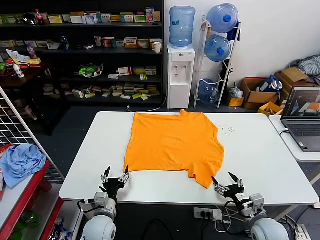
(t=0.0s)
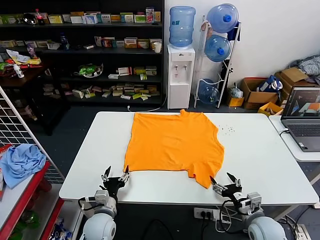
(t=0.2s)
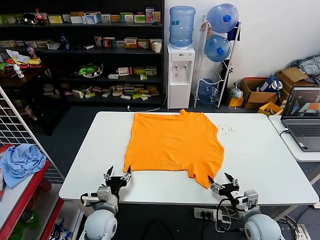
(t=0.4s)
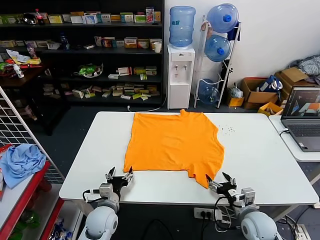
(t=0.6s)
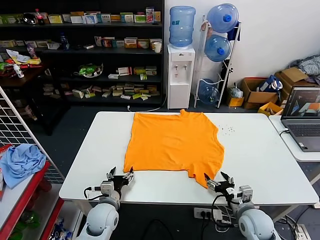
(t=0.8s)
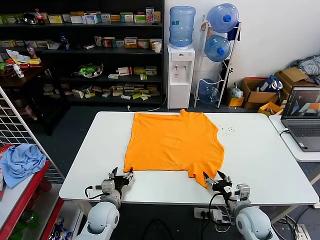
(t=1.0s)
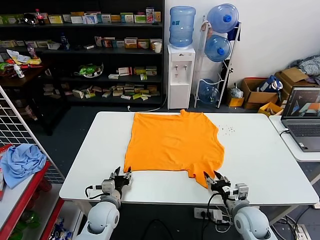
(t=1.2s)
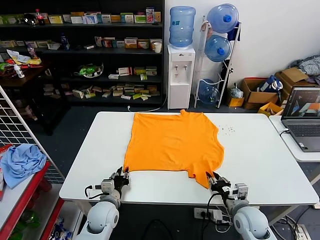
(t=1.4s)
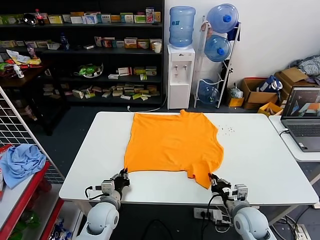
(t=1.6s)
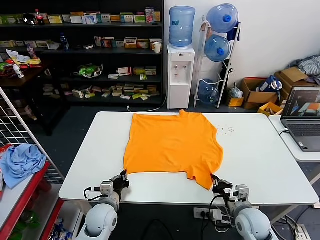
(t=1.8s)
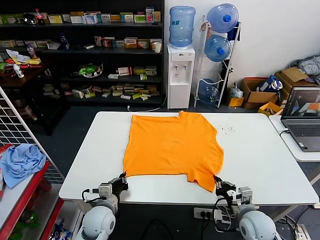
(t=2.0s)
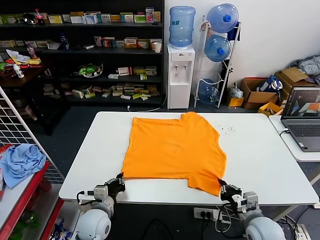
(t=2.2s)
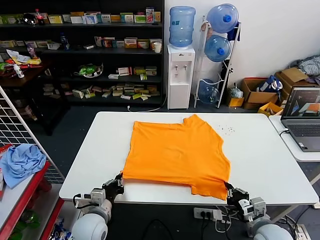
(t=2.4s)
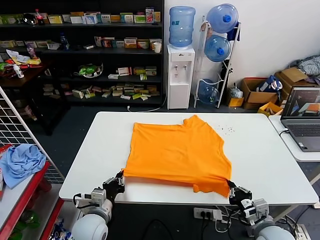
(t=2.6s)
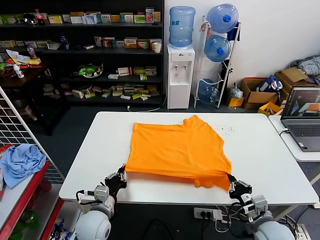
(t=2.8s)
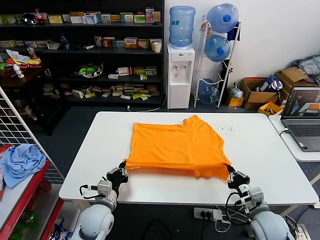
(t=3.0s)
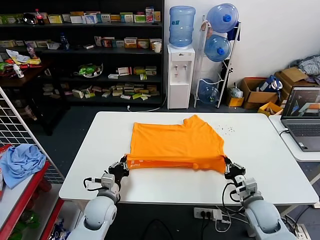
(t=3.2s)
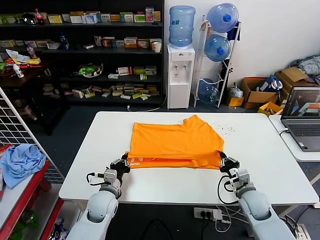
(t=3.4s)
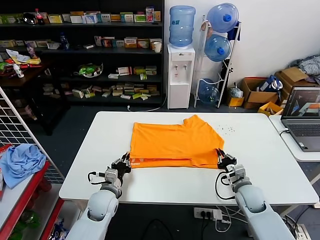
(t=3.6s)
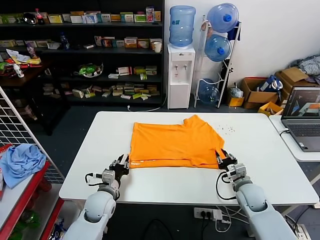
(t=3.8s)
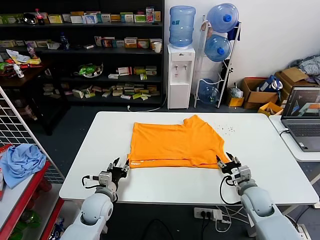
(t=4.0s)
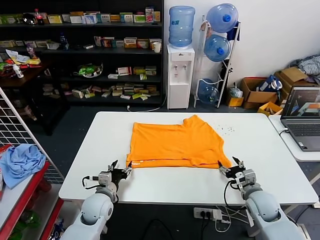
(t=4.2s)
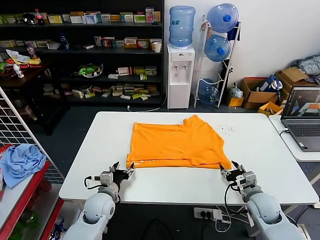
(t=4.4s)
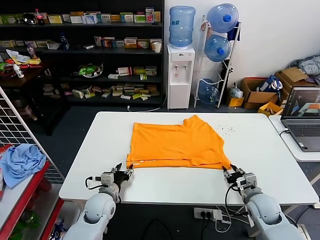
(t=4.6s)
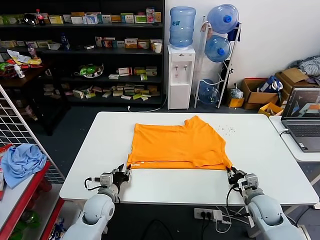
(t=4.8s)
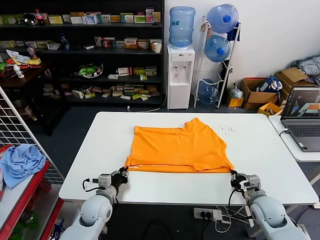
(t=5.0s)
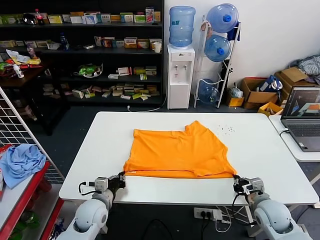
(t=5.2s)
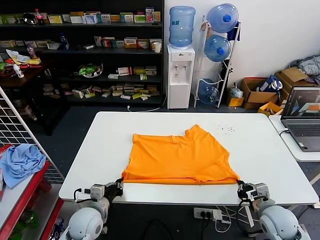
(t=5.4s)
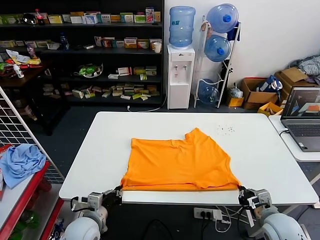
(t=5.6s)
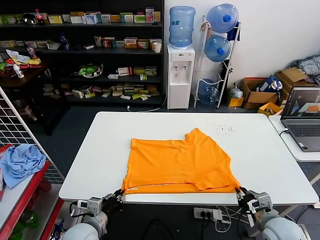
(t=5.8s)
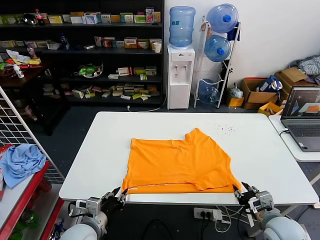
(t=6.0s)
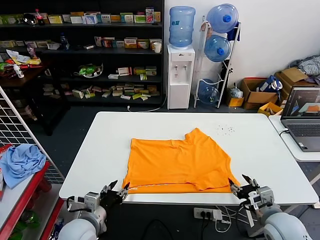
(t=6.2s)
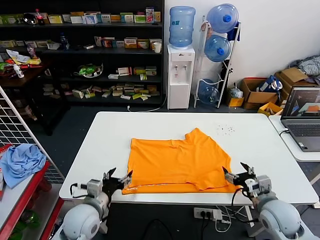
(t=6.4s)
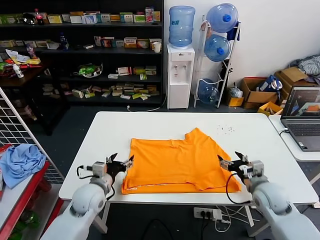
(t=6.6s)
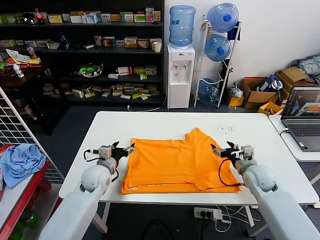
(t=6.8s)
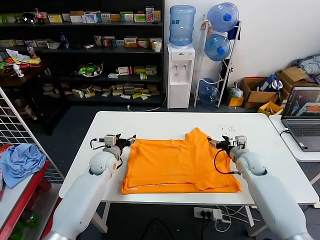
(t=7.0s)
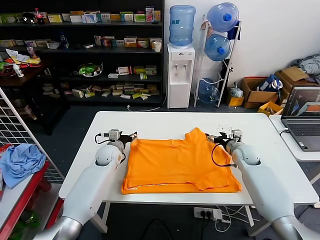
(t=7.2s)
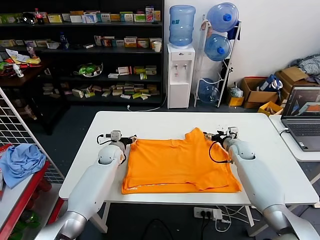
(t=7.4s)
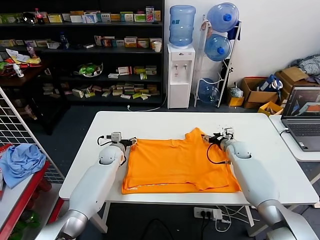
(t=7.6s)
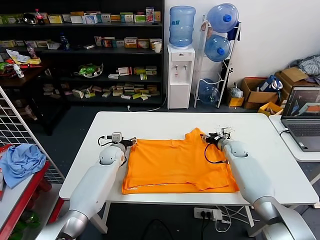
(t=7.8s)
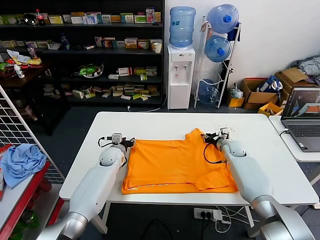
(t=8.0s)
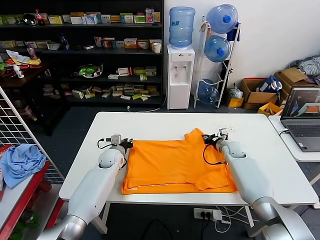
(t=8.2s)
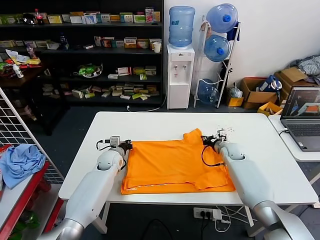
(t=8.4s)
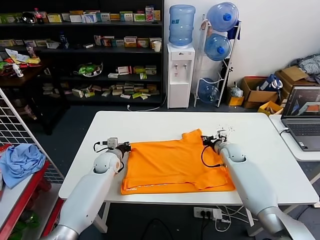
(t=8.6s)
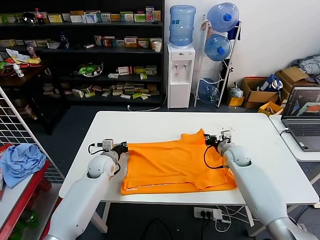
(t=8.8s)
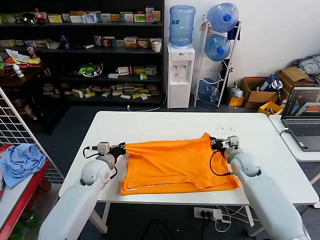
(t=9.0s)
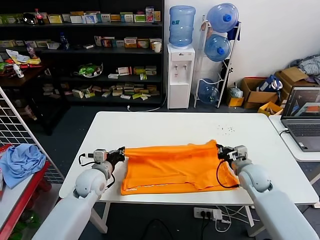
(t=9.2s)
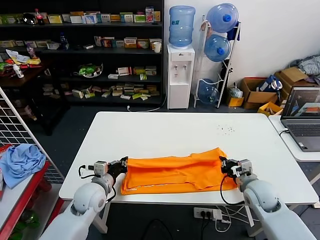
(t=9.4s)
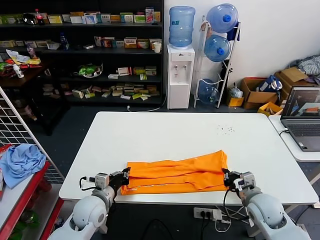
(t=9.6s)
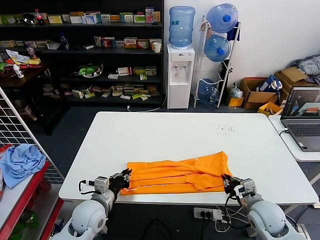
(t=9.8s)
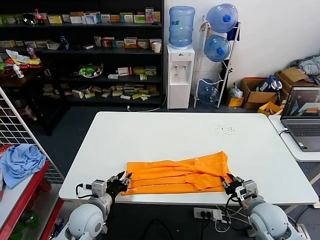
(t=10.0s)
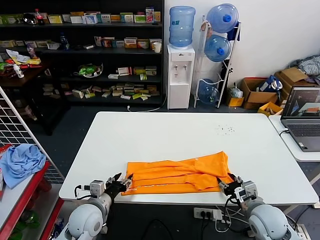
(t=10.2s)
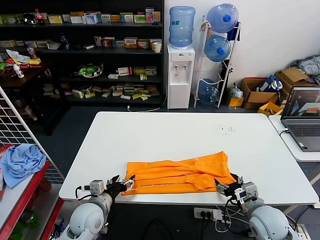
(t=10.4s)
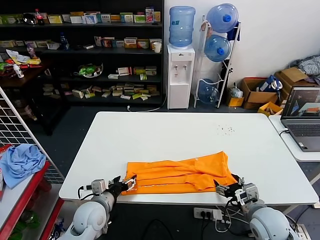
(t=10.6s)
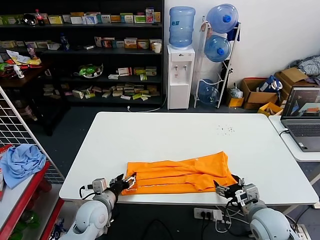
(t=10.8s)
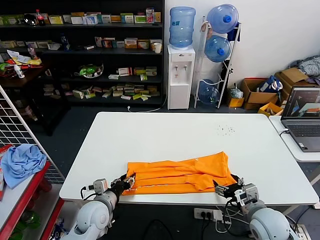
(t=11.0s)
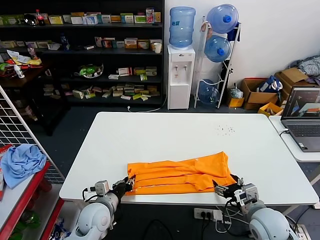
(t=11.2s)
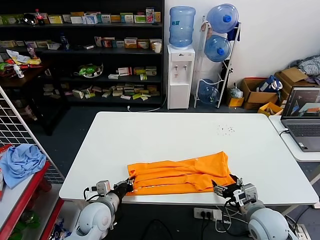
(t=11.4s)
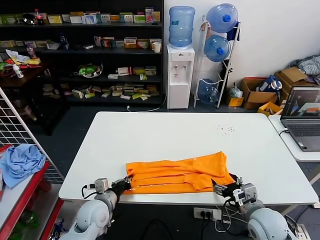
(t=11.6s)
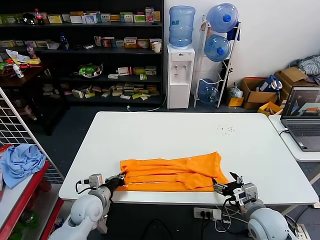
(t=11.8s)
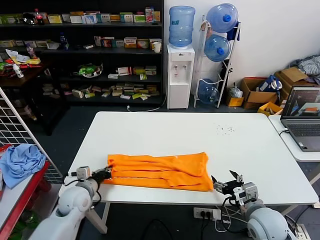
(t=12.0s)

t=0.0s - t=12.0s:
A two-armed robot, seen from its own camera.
Task of the whole recording: fold and organize the clothes.
Step, t=0.0s - t=1.8s: use both grippers simultaneously to clamp the lower edge of the clothing fabric.
Step, t=2.0s - t=3.8s: use both grippers to drag the lower edge of the fabric forward and fold it over the upper edge.
Step, t=4.2s - t=6.0s: Drag the clothes downward with both gripper.
Step, t=6.2s - t=8.4s: use both grippers simultaneously to clamp the upper edge of the clothing fabric.
Step, t=8.6s - t=9.8s: use both grippers to drag the upper edge of the fabric backward and fold it over the lower edge.
Step, t=10.0s - t=11.4s: use the left gripper to clamp the left edge of the fabric.
t=3.0s - t=4.4s: The left gripper changes place by approximately 5 cm, and opens up. Meanwhile the right gripper opens.
t=4.4s - t=6.0s: The two grippers go roughly 10 cm backward and upward. The left gripper closes its fingers; the right gripper closes and opens again.
t=6.0s - t=7.6s: Both grippers travel together forward, about 30 cm. The left gripper opens up.
t=7.6s - t=9.0s: The two grippers go about 10 cm backward. The left gripper closes up, while the right gripper closes up.
t=9.0s - t=10.4s: Both grippers move backward, about 15 cm. The left gripper opens its fingers, while the right gripper opens up.
t=10.4s - t=12.0s: The left gripper is displaced to the left and forward by roughly 10 cm, and closes its fingers.

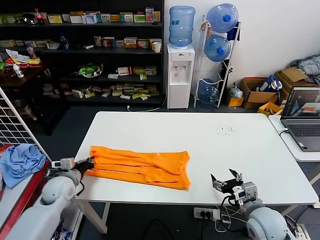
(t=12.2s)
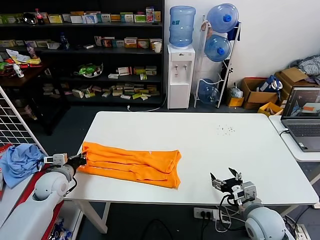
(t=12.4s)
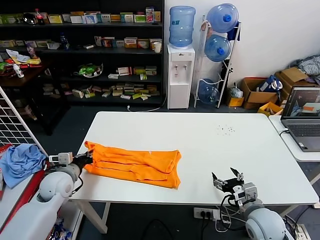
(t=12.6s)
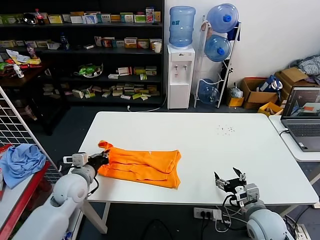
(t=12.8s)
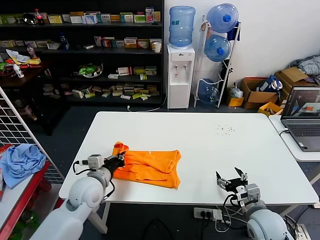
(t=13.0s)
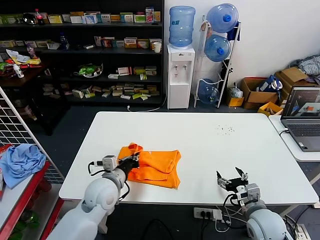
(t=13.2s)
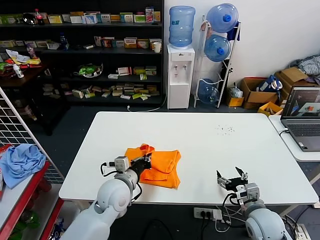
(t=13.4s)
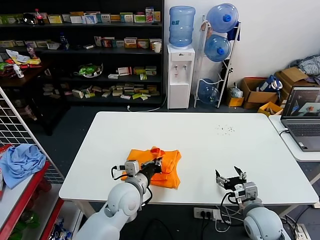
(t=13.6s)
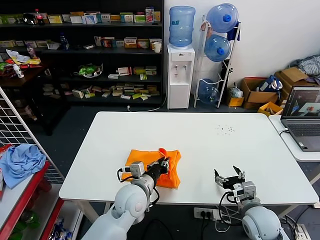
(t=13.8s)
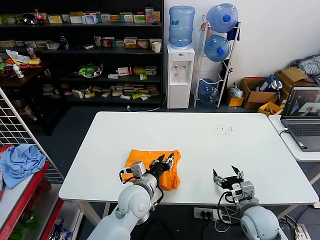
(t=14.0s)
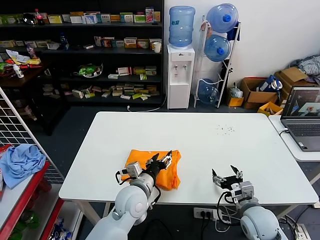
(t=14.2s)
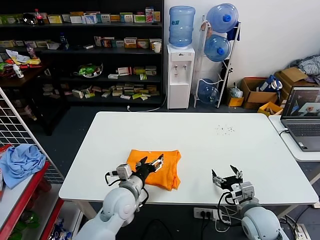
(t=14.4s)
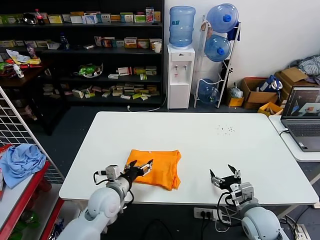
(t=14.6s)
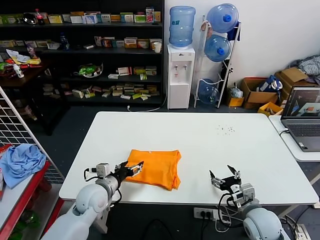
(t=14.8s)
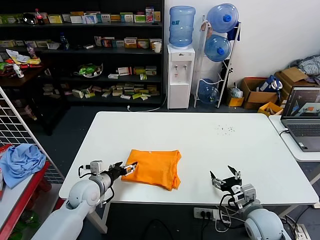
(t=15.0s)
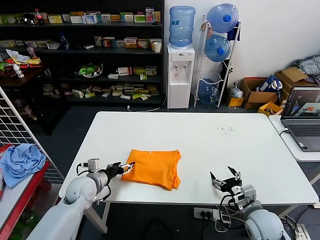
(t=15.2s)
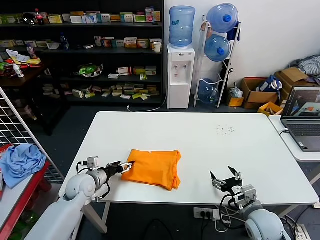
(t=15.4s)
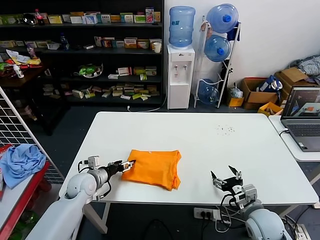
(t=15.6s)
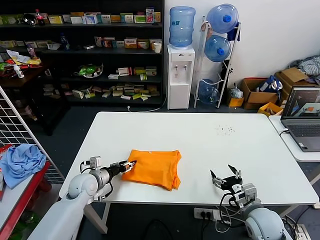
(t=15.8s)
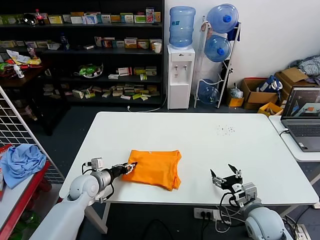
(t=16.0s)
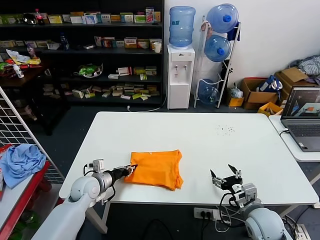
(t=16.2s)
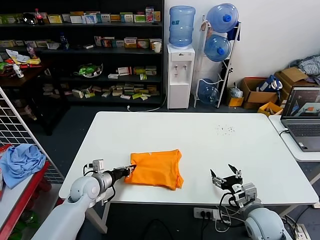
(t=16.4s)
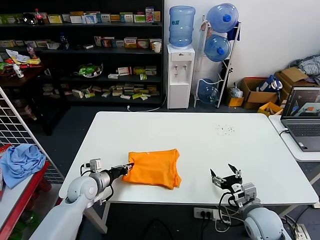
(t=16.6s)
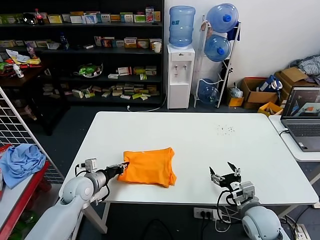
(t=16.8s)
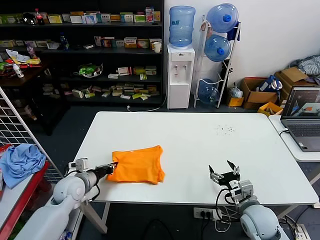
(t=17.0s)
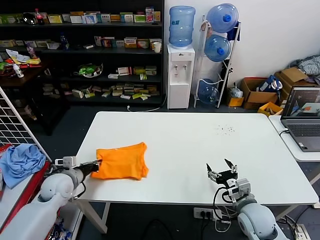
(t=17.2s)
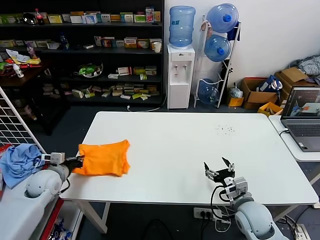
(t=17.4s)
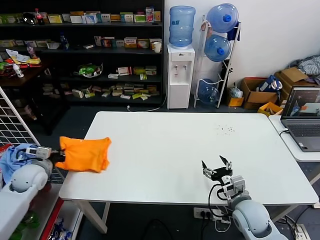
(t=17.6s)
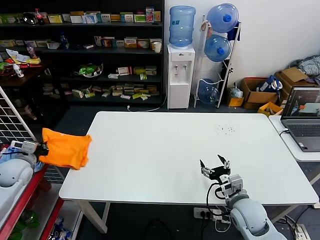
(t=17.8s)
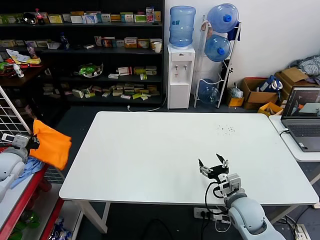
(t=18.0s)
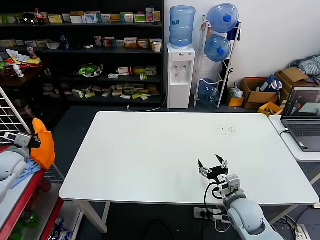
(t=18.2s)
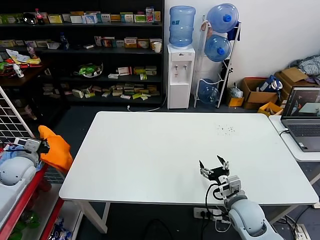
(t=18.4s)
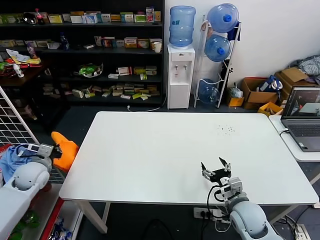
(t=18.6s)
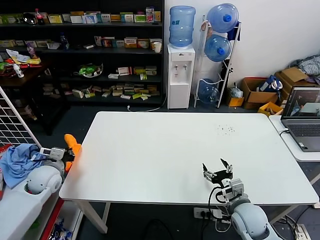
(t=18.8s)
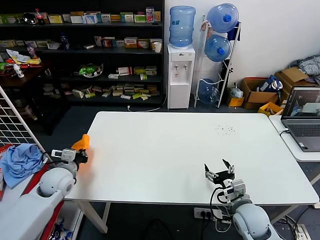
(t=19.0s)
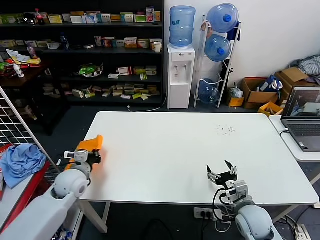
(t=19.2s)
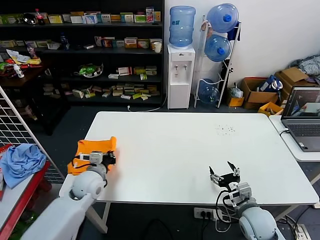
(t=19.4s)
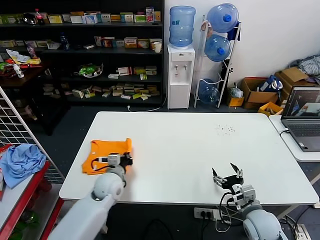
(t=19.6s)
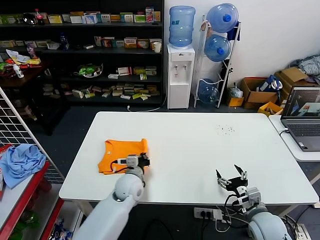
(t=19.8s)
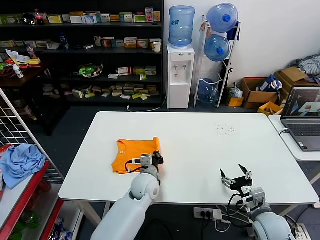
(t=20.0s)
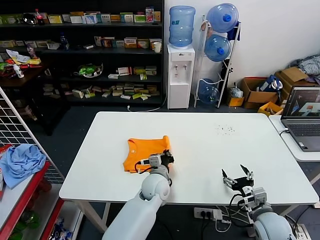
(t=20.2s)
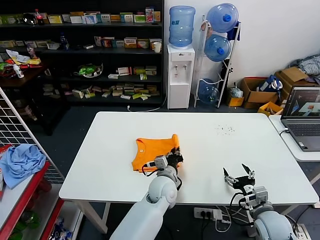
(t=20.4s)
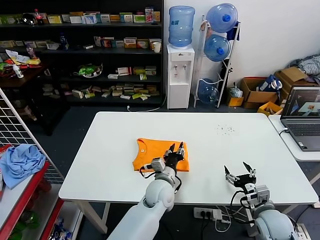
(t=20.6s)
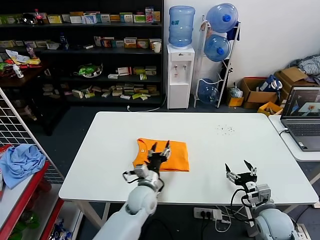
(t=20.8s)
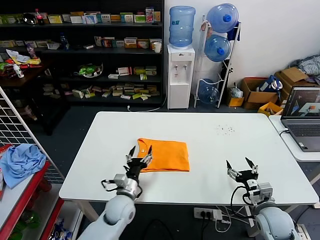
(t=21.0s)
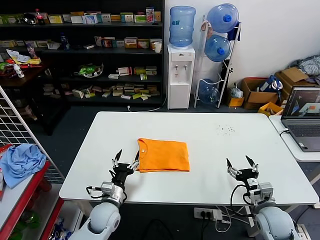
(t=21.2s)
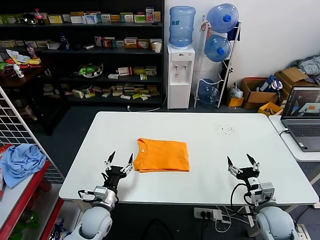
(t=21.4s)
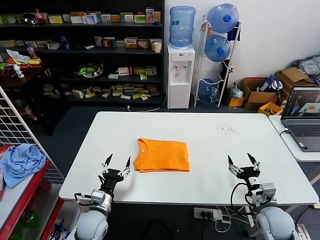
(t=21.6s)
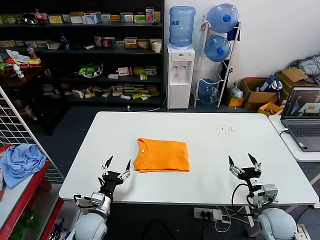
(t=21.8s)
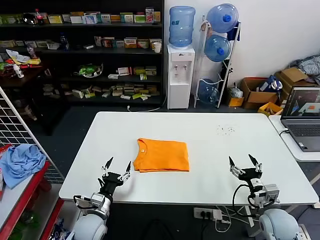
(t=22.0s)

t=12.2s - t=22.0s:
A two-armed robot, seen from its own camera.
Task of the whole recording: fold and organize the clothes.
Step, t=12.2s - t=14.0s: use the left gripper to drag the left edge of the fabric to the left and folds it over the right edge.
Step, t=14.2s - t=20.4s: Flip the folded clothes over with left gripper.
t=12.2s - t=13.6s: The left gripper heads to the right, covering some 25 cm.
t=13.6s - t=15.0s: The left gripper moves to the left, approximately 15 cm, and opens up.
t=15.0s - t=16.4s: The left gripper closes its fingers.
t=16.4s - t=17.8s: The left gripper travels to the left and upward by about 25 cm.
t=17.8s - t=19.2s: The left gripper heads to the right, covering about 15 cm.
t=19.2s - t=20.6s: The right gripper goes about 5 cm to the right. The left gripper shifts about 30 cm to the right, and opens its fingers.
t=20.6s - t=22.0s: The left gripper travels to the left by approximately 25 cm, and opens.
